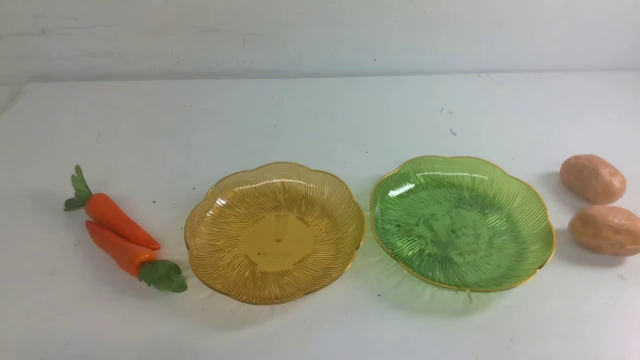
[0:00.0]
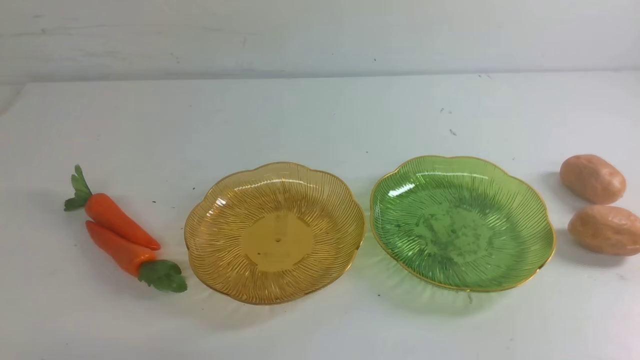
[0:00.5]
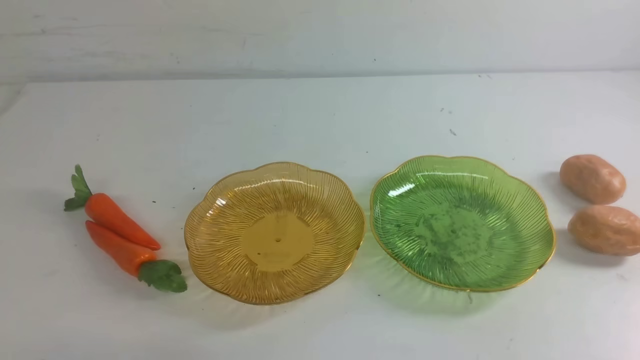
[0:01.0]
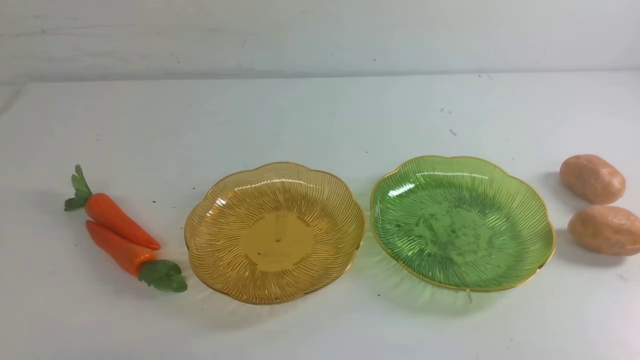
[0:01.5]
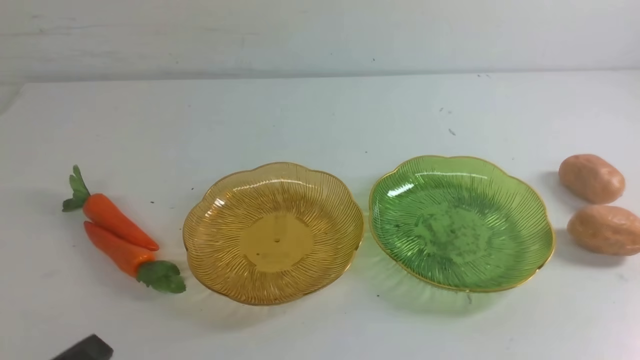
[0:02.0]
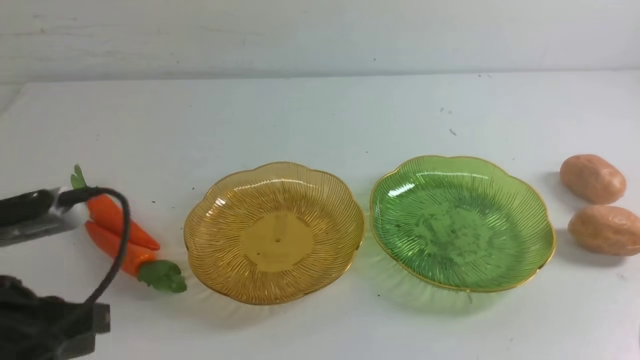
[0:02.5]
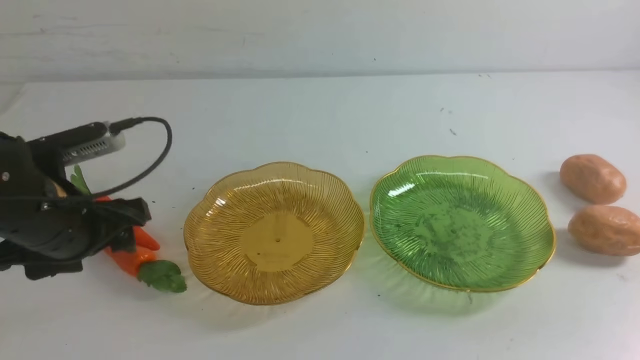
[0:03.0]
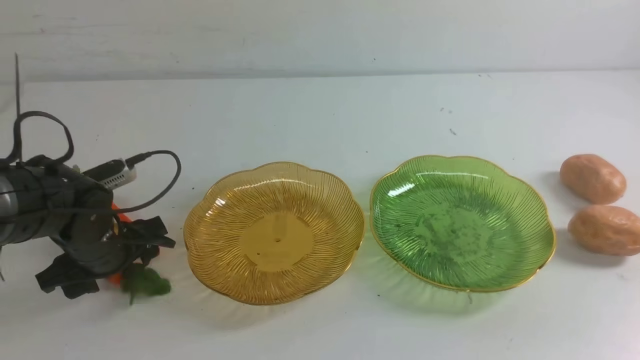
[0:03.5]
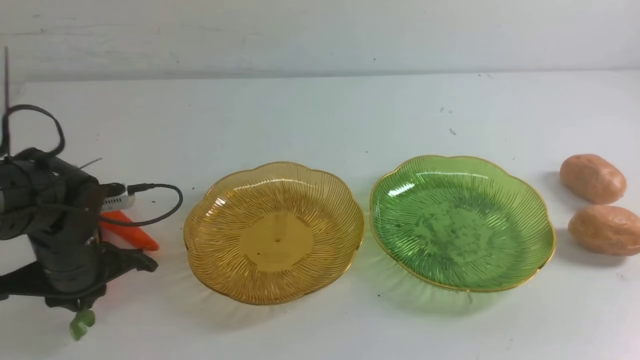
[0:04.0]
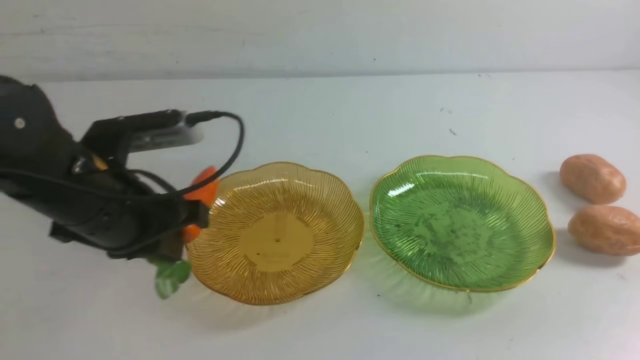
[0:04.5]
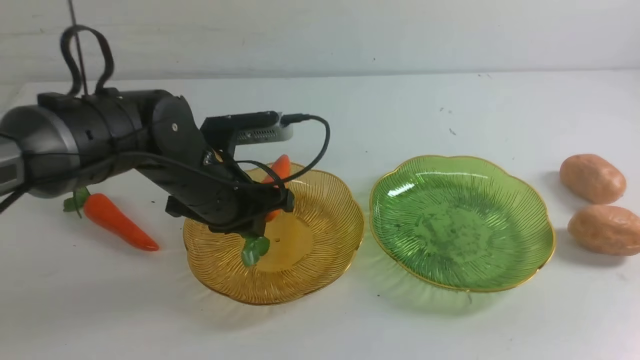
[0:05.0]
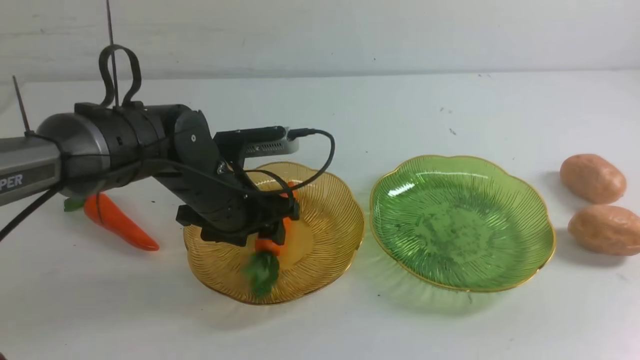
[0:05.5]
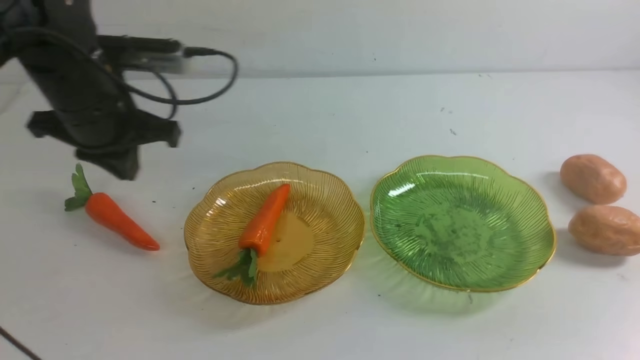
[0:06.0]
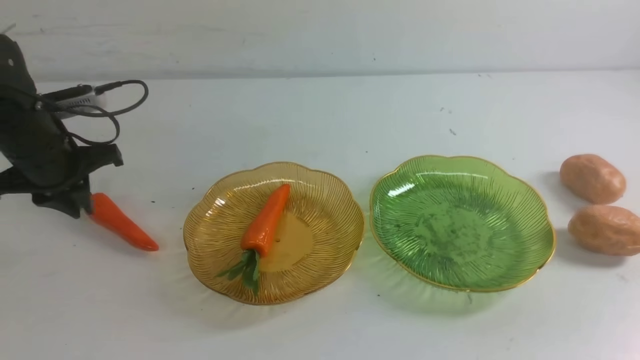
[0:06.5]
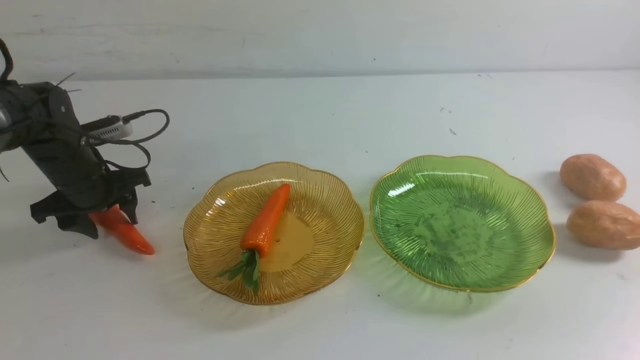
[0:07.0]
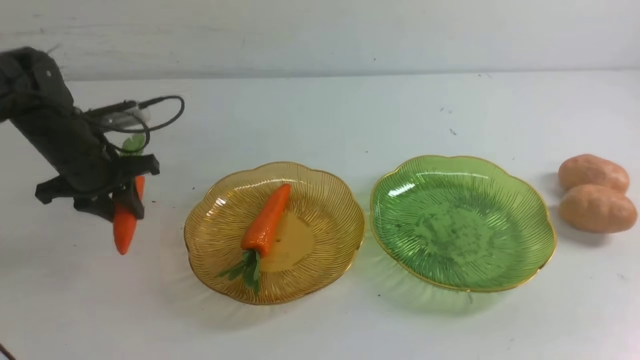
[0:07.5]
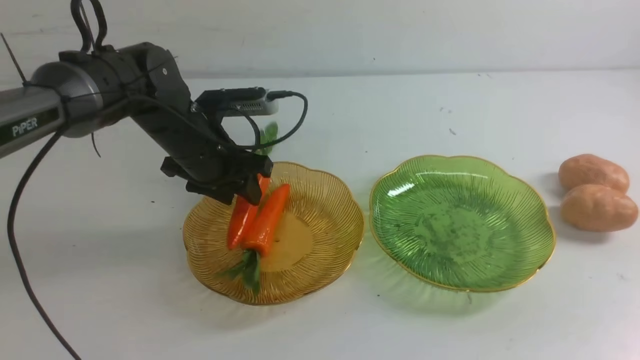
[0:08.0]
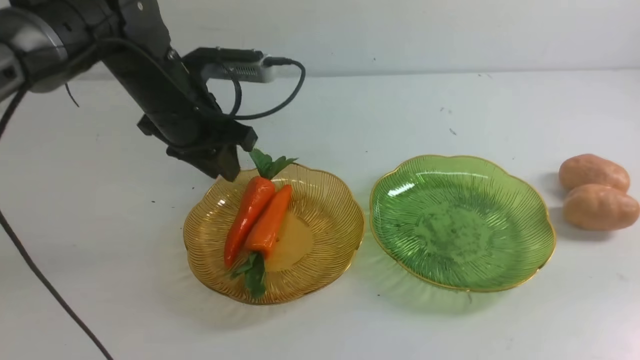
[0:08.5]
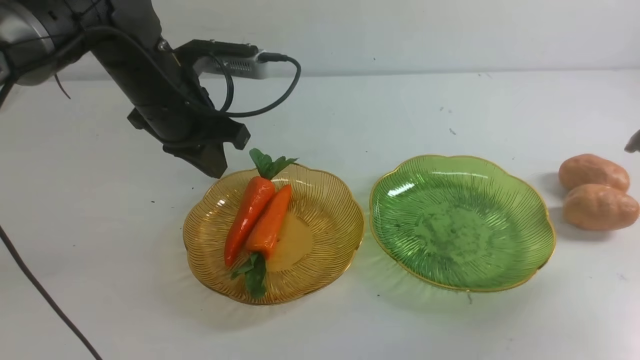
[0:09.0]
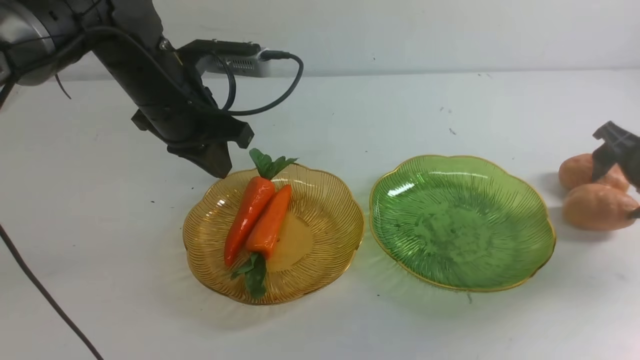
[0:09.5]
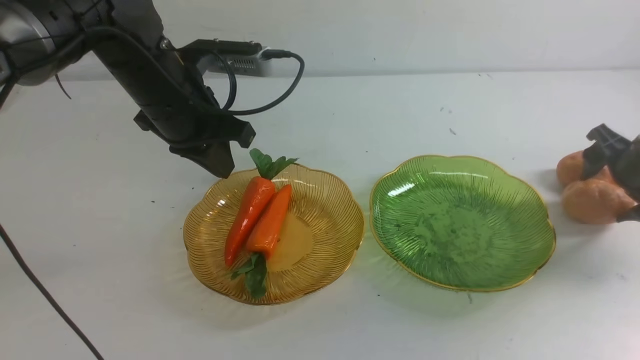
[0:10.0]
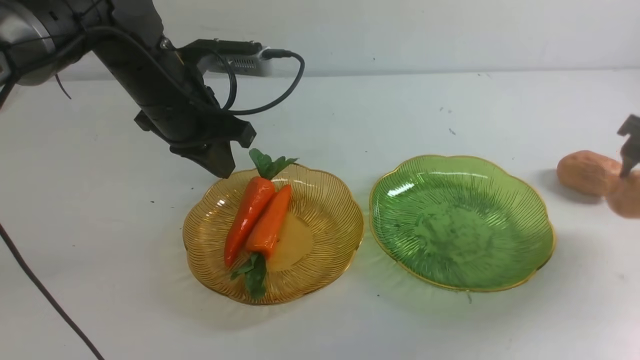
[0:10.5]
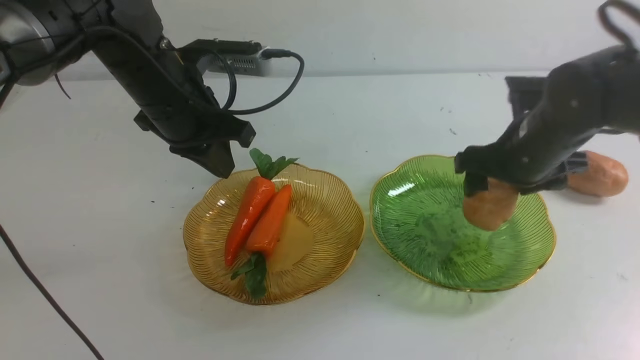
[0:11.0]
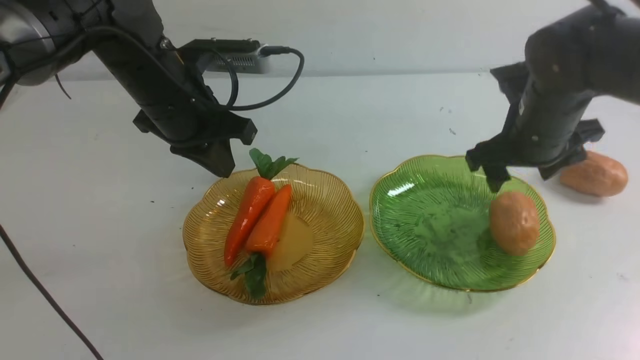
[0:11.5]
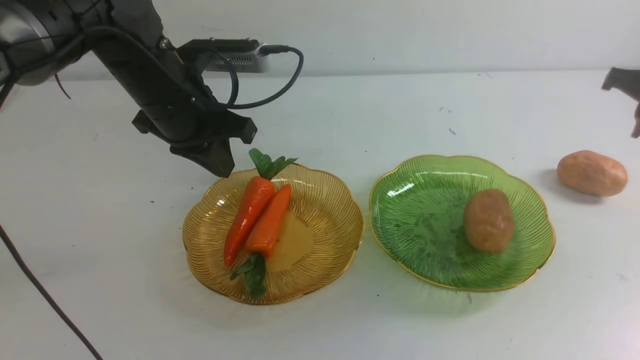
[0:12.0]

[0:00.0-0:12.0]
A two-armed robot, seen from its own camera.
Step, 0:00.0 to 0:08.0: use the left arm to grab a carrot and put it into the left plate.
Step, 0:08.5 to 0:11.5: Grab a potato with your right arm and put it on the right plate.
0:02.0 to 0:04.0: The left gripper heads forward, covering roughly 25 cm, and opens, then closes again.
0:04.0 to 0:06.0: The left gripper is displaced upward and forward by about 15 cm, reaches approximately 15 cm to the right, then returns, and opens and closes again.
0:06.0 to 0:08.0: The left gripper is displaced to the right and downward by roughly 10 cm, and opens.
0:08.0 to 0:10.0: The left gripper heads upward, covering some 5 cm, and closes; the right gripper goes approximately 30 cm forward, and opens up.
0:10.0 to 0:12.0: The right gripper reaches roughly 15 cm to the left, then returns, and closes, then reopens.

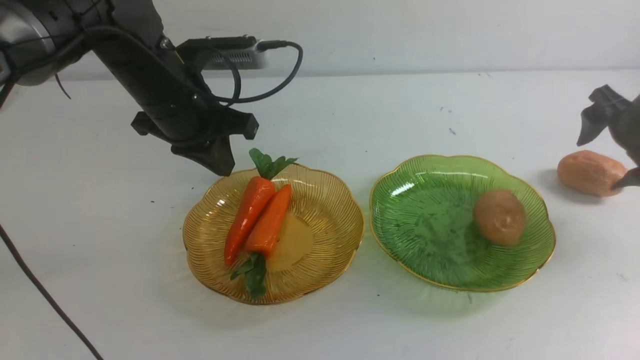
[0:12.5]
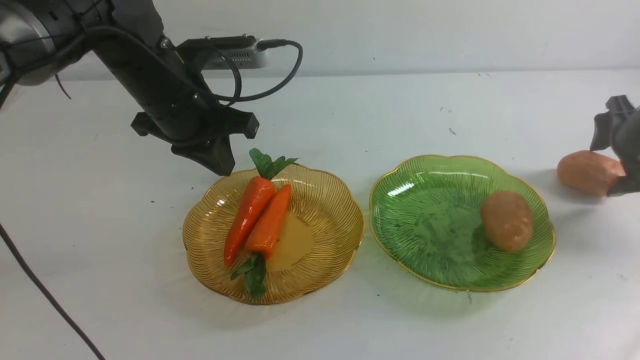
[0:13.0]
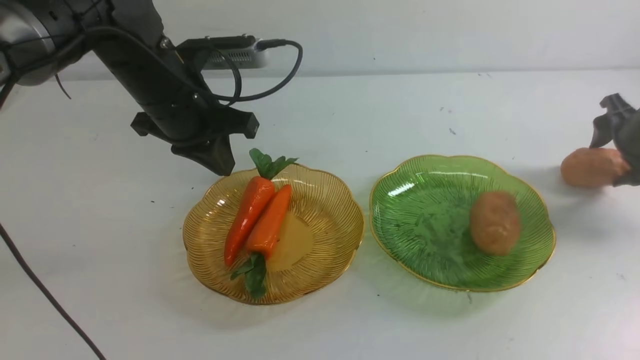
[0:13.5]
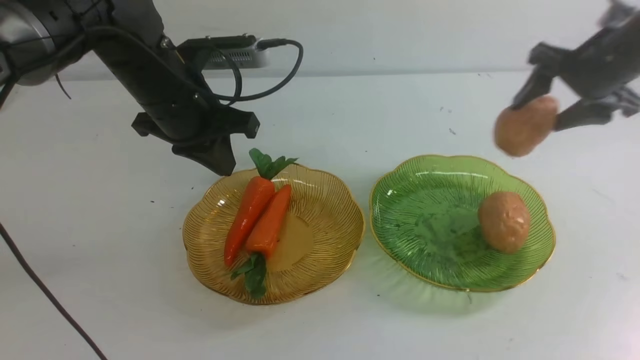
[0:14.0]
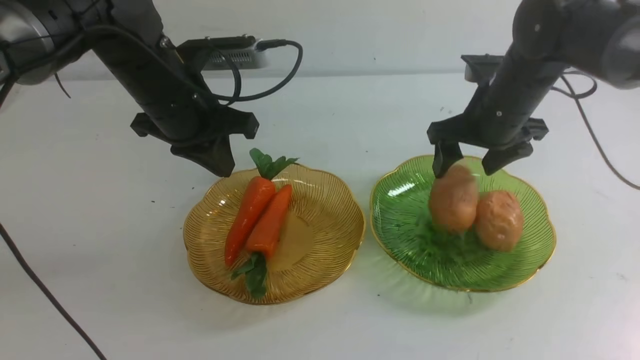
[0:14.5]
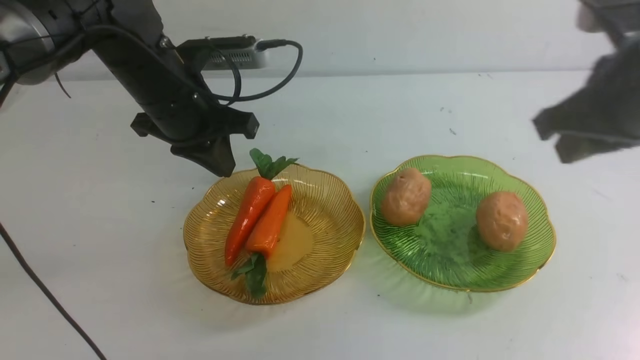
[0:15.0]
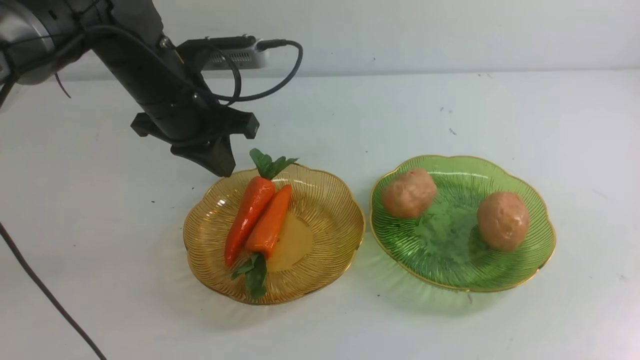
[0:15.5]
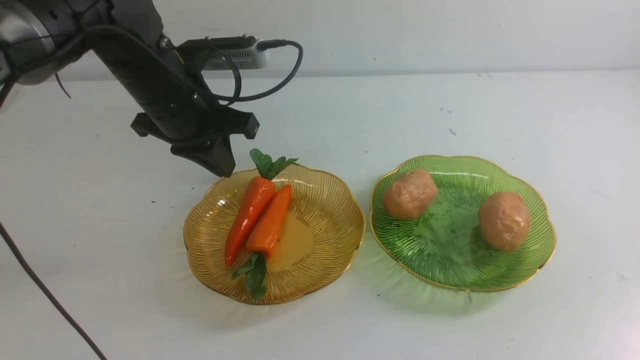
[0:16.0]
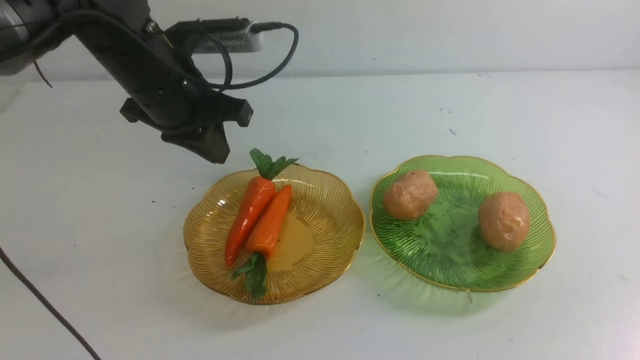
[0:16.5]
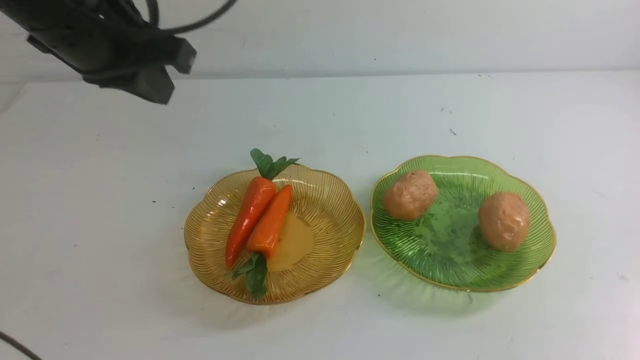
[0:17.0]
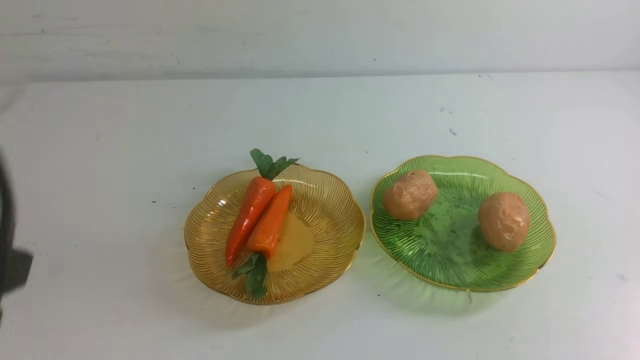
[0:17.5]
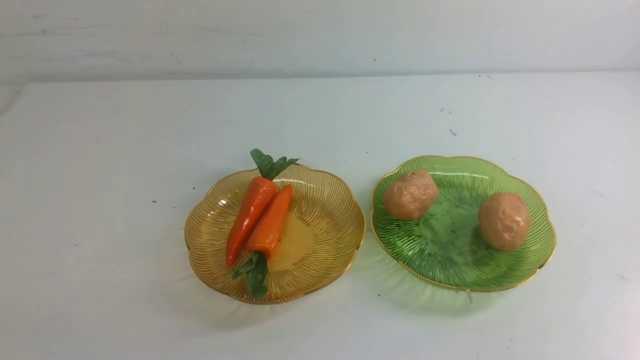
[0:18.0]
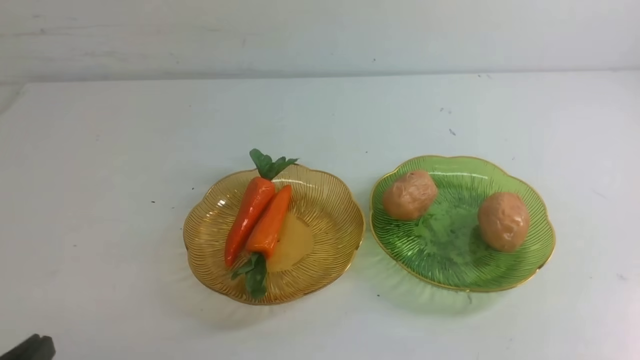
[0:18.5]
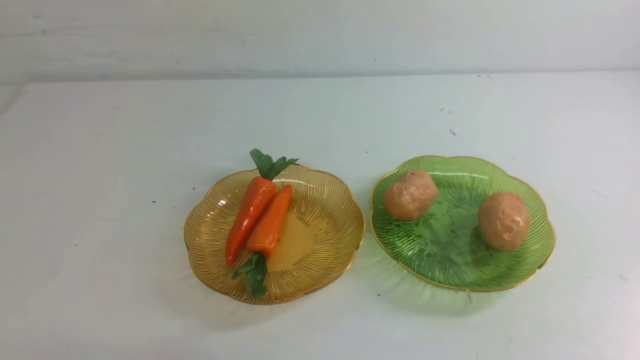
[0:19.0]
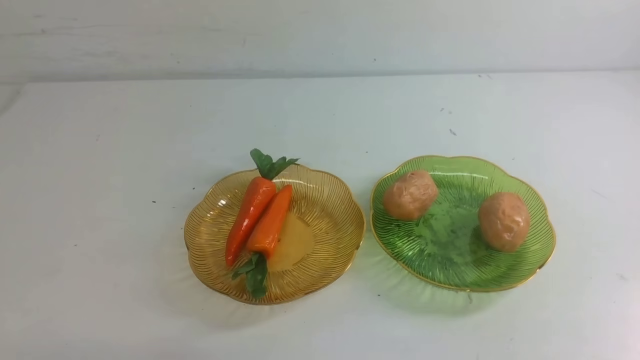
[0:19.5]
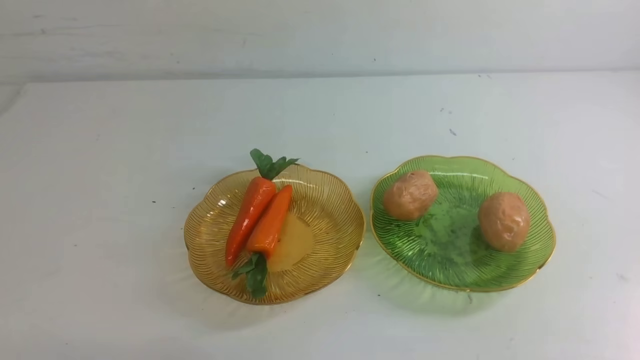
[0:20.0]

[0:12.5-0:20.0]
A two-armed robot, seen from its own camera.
Step, 0:12.5 to 0:14.5: Grab a potato with your right arm and put it on the right plate.
0:12.5 to 0:14.5: The right gripper moves to the left, upward and backward, approximately 20 cm, and closes.
0:14.5 to 0:16.5: The right gripper travels backward by approximately 30 cm, and closes up.
0:16.5 to 0:18.0: The left gripper travels backward by some 35 cm, while the right gripper goes about 5 cm downward.
